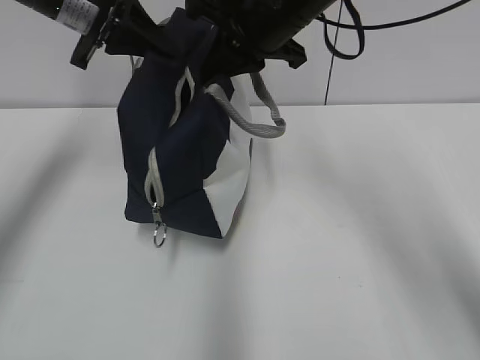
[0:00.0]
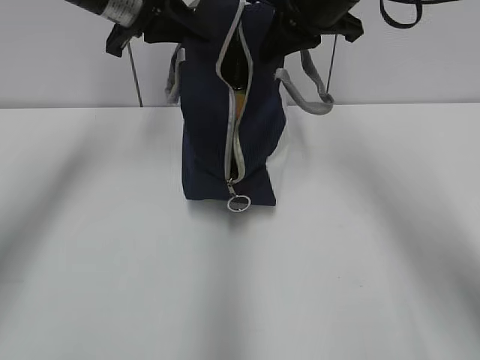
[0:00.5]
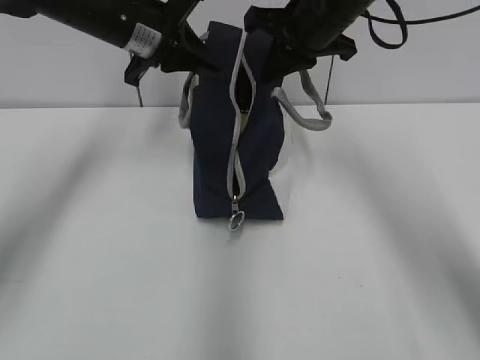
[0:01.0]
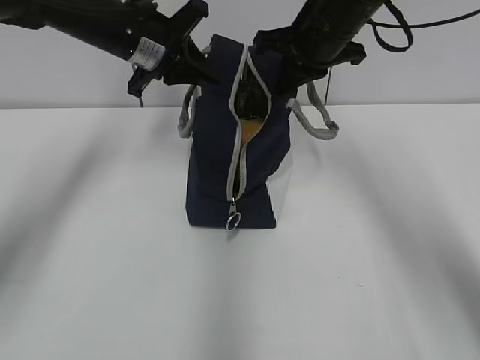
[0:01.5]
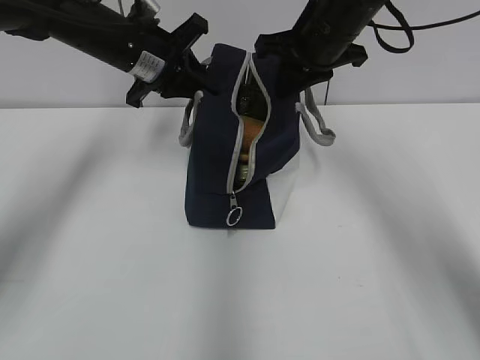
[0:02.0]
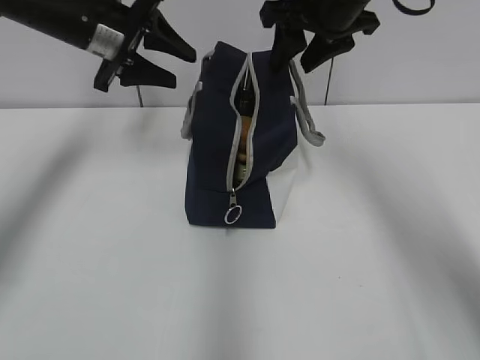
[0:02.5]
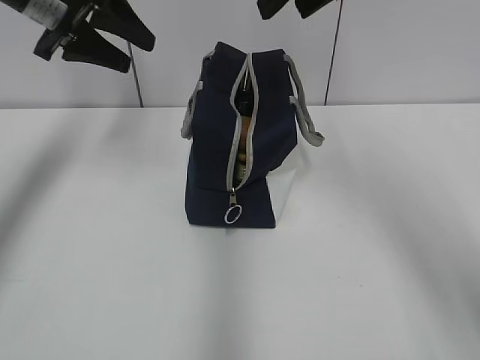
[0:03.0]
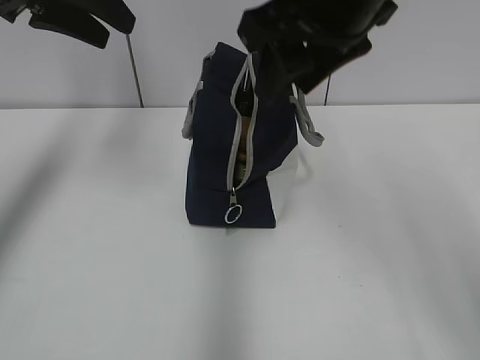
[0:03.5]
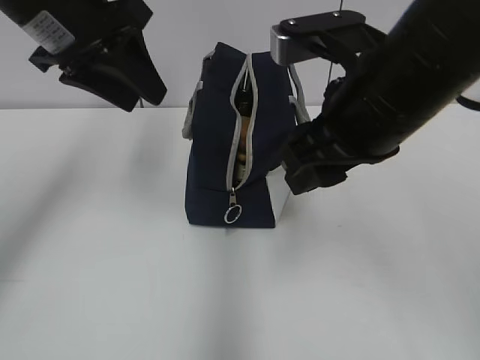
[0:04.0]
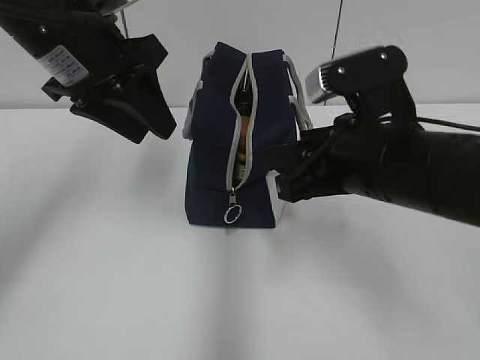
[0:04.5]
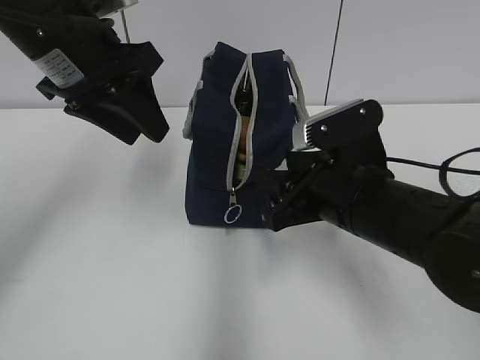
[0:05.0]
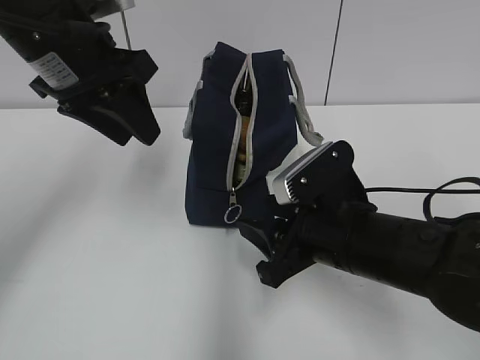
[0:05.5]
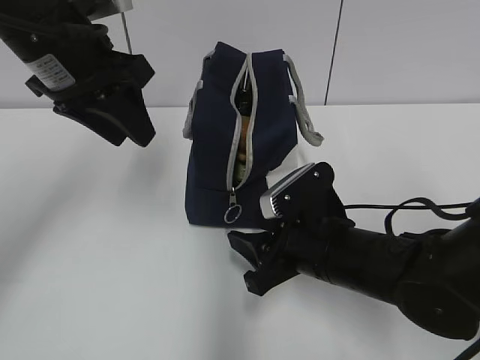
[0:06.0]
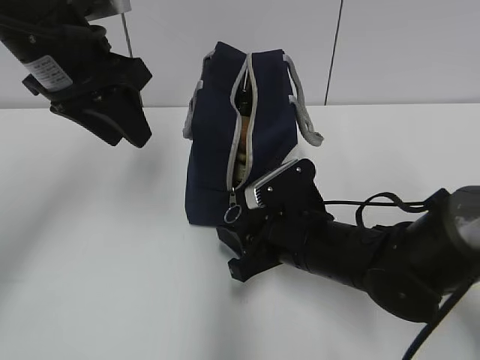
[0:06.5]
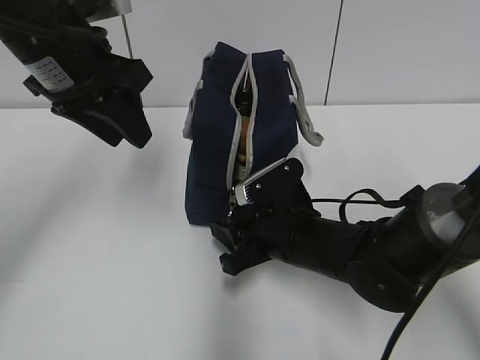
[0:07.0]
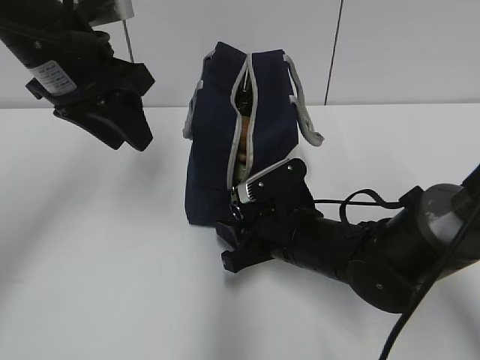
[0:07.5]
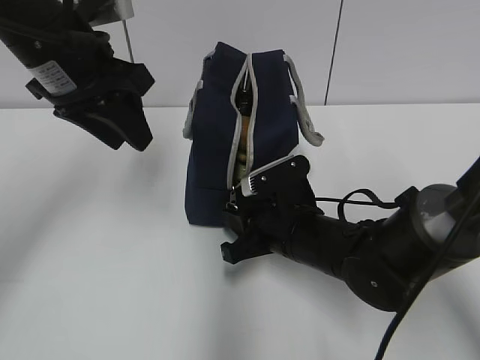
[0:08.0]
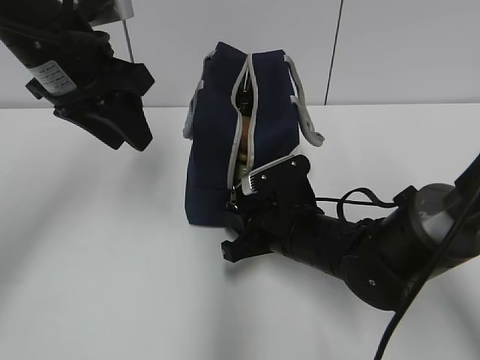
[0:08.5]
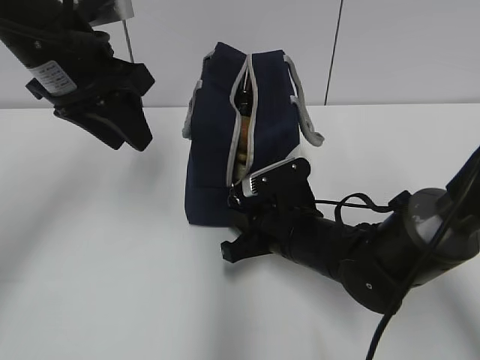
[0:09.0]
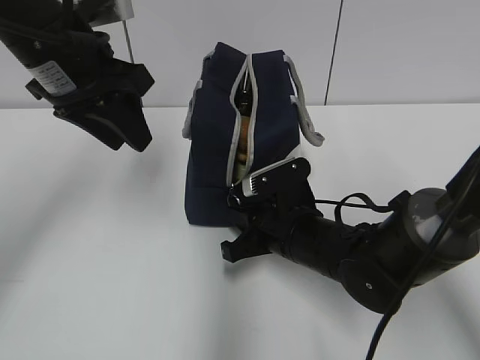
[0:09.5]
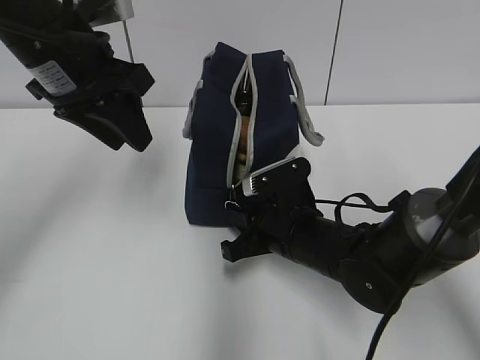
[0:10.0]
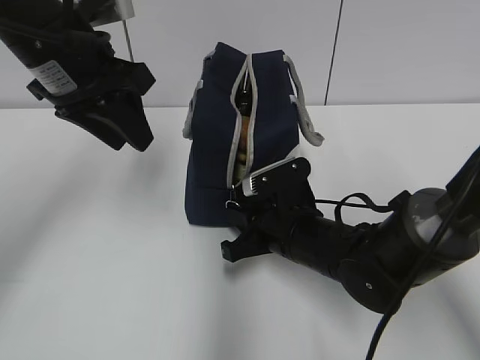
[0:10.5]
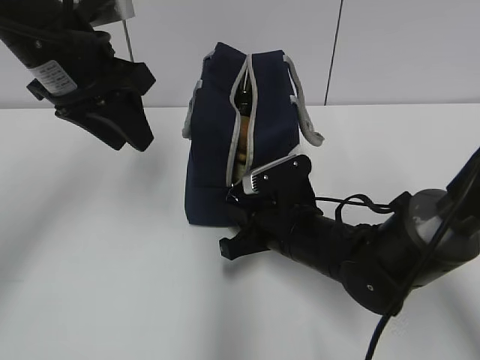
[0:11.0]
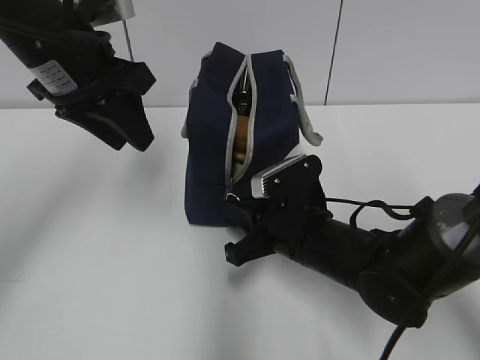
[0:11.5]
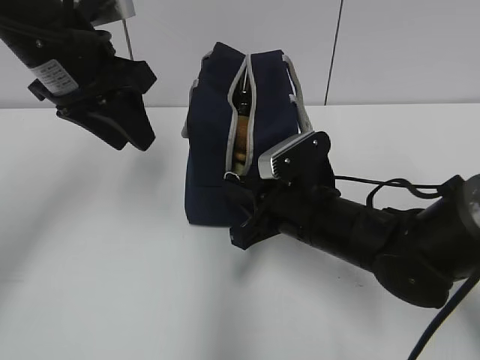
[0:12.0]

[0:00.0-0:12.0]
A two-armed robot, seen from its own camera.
Step, 0:00.0 to 0:02.0: Move the lunch bag to the right.
0:00.0 to 0:02.0: The right gripper heads to the right, covering about 5 cm. Meanwhile the left gripper is displaced downward by approximately 5 cm.
0:02.0 to 0:04.0: The left gripper shifts roughly 15 cm backward and upward, and opens. The right gripper is displaced backward by roughly 20 cm, and opens its fingers.
0:04.0 to 0:06.0: The right gripper is displaced downward by roughly 20 cm.
0:06.0 to 0:08.0: The right gripper ends up approximately 5 cm from where it was, and closes.
0:08.0 to 0:10.0: The two grippers keep their place.
0:10.0 to 0:12.0: The grippers make only small movements.

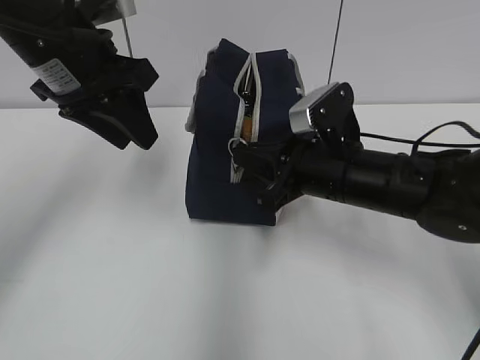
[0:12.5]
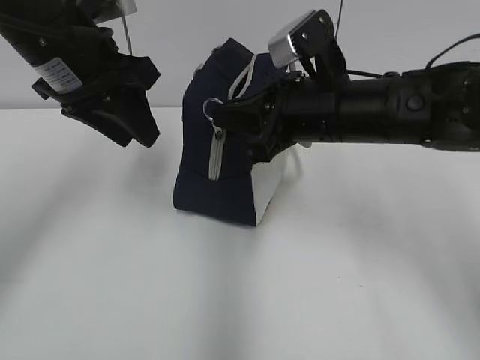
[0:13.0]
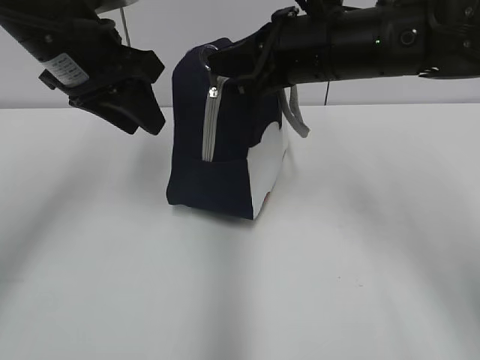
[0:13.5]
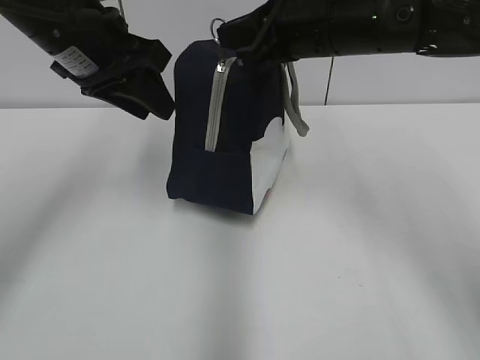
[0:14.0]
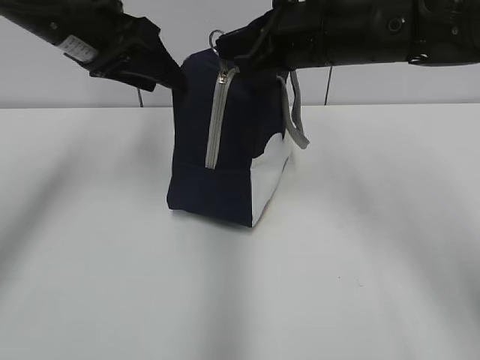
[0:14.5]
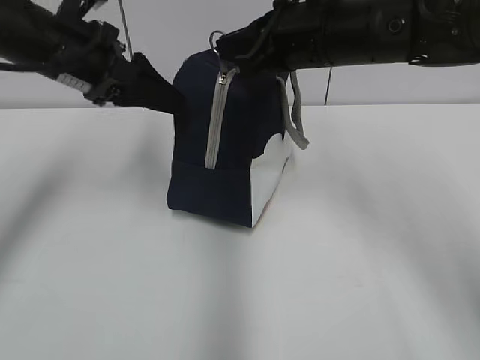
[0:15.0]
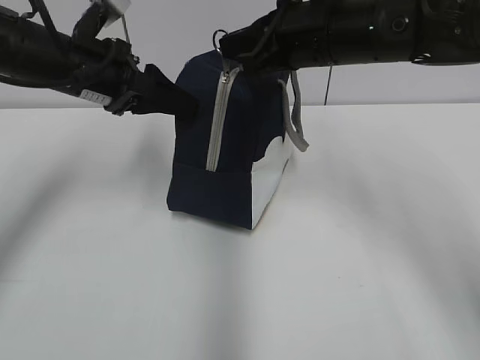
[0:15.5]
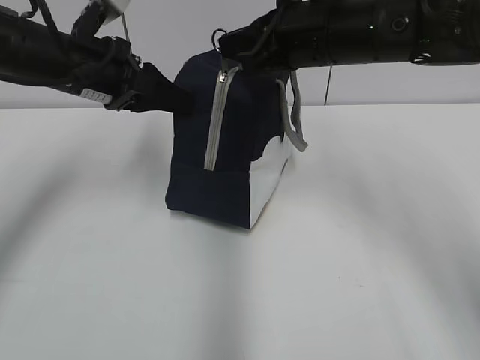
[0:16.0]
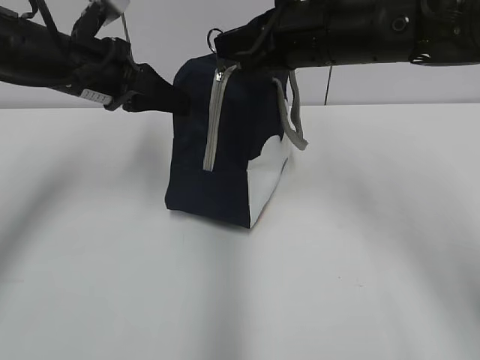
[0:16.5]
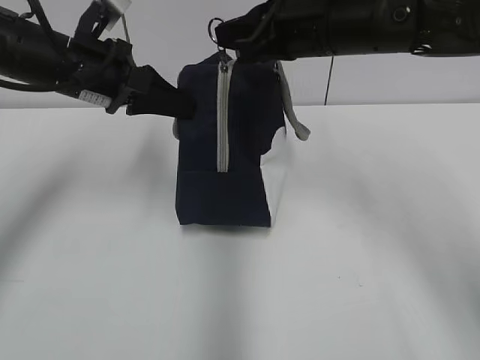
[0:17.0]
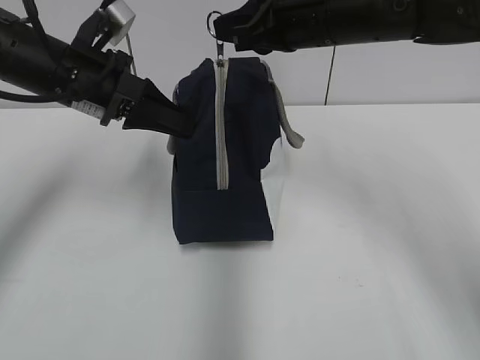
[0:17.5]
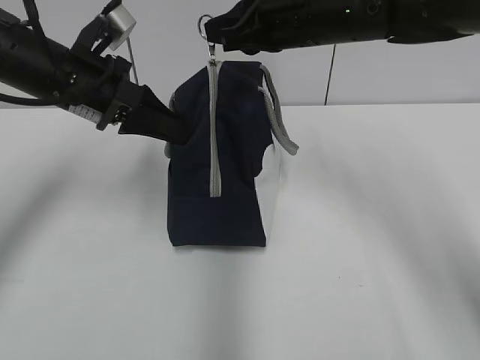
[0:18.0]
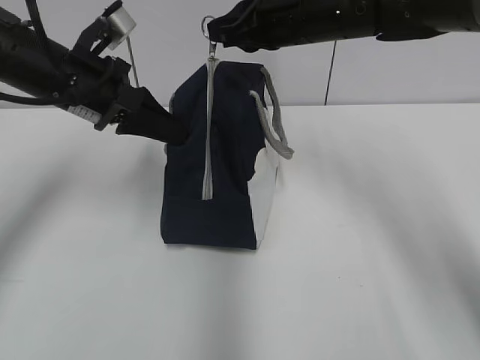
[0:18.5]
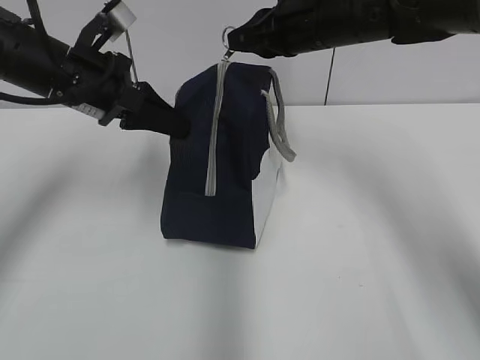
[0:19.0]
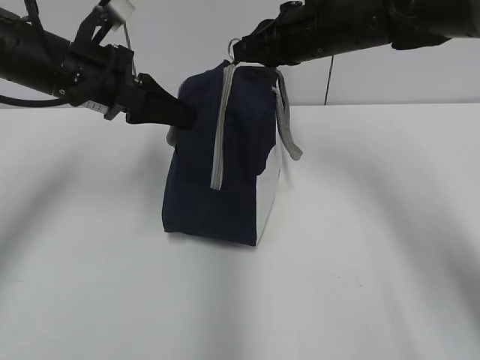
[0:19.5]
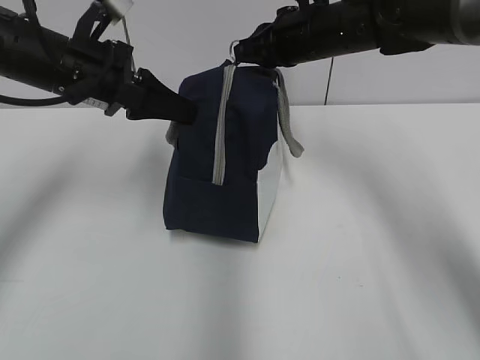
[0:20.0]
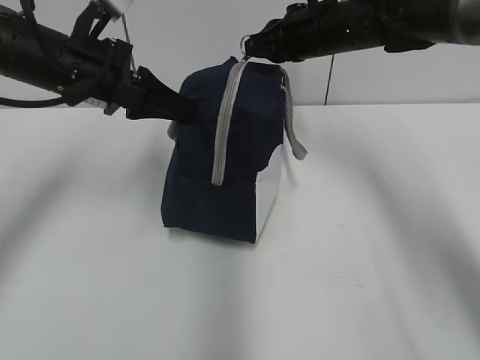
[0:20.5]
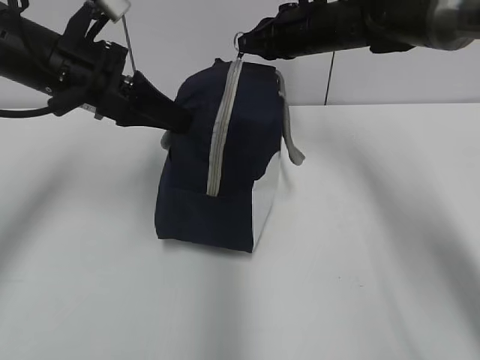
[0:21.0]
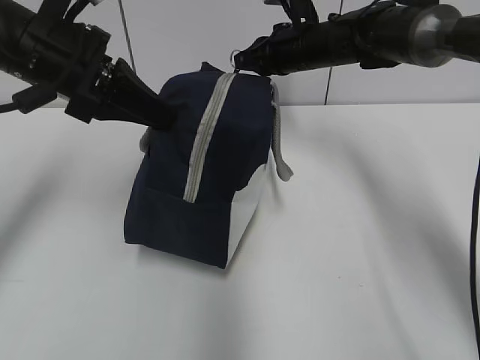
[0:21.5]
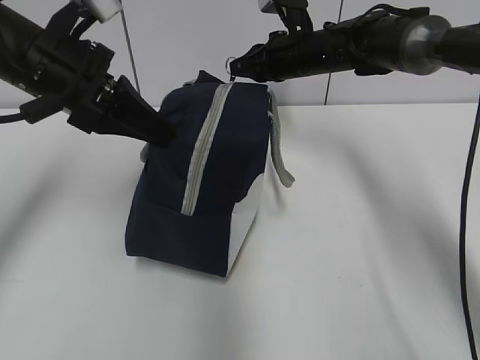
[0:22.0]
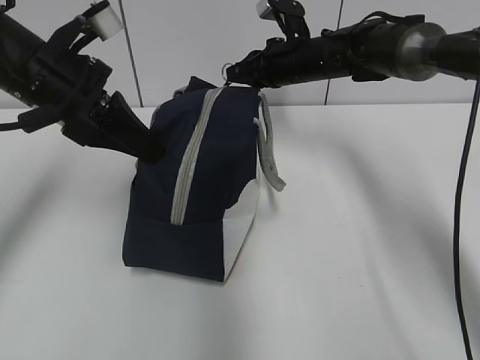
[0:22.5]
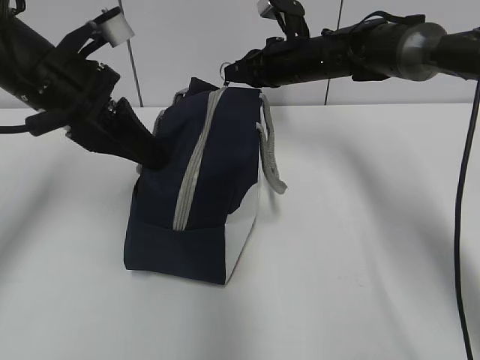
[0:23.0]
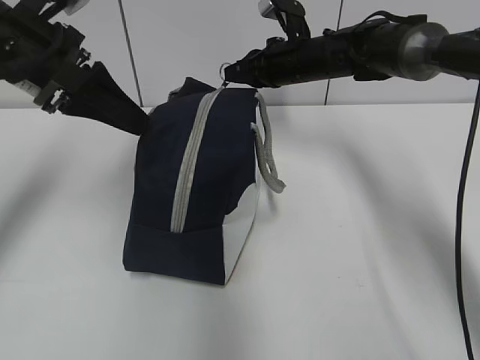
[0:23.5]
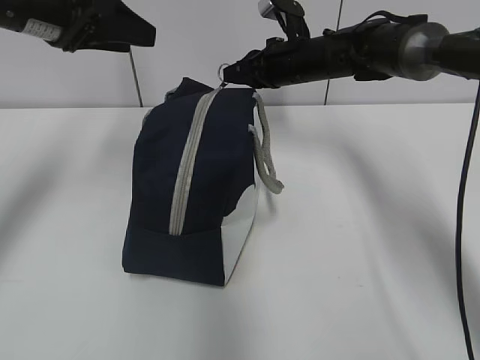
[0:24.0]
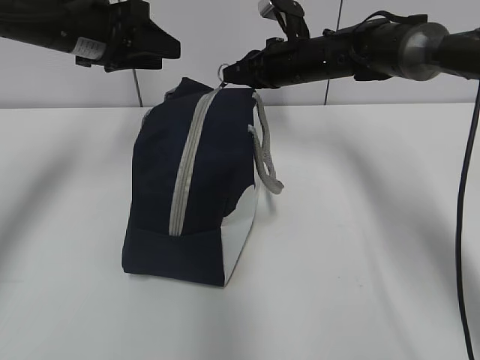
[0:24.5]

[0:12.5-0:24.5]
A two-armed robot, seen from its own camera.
Step, 0:12.5 to 0:16.0: Grab the lunch bag with your left hand.
0:12.5 to 0:14.5: The right gripper travels upward and forward by about 15 cm.
0:14.5 to 0:16.5: The left gripper travels downward by about 5 cm, and closes its fingers.
0:16.5 to 0:18.5: The right gripper heads forward, covering approximately 5 cm.
0:18.5 to 0:20.5: The right gripper moves forward, approximately 5 cm.
0:20.5 to 0:22.5: The right gripper goes about 5 cm downward.
0:22.5 to 0:24.5: The left gripper heads forward, covering about 10 cm, and opens its fingers.

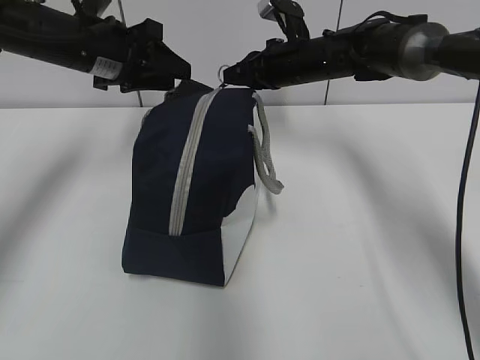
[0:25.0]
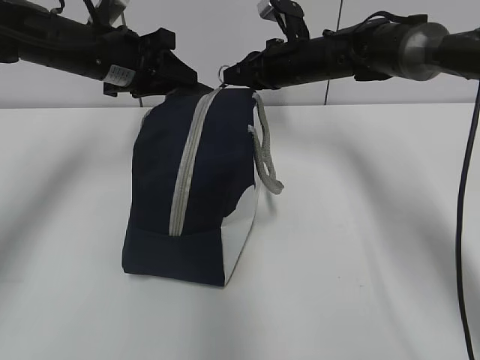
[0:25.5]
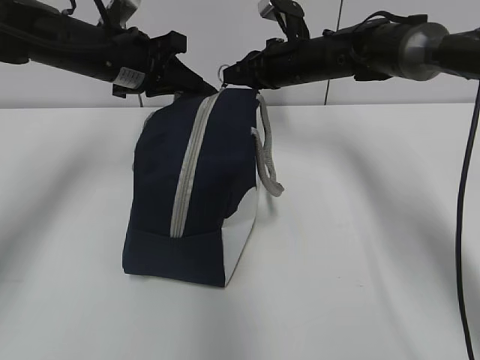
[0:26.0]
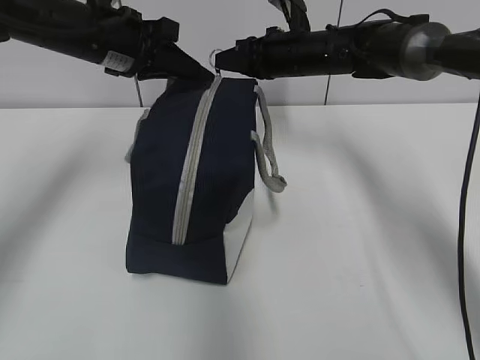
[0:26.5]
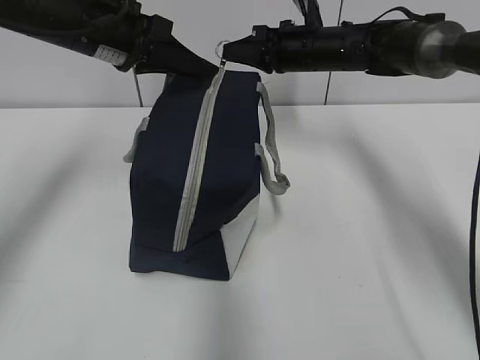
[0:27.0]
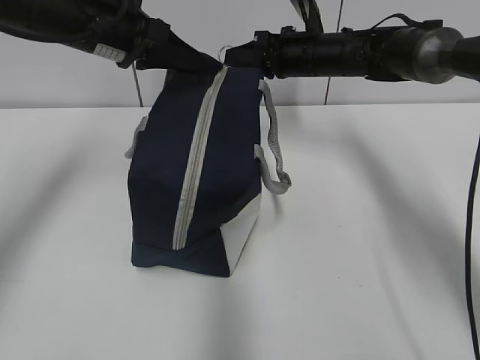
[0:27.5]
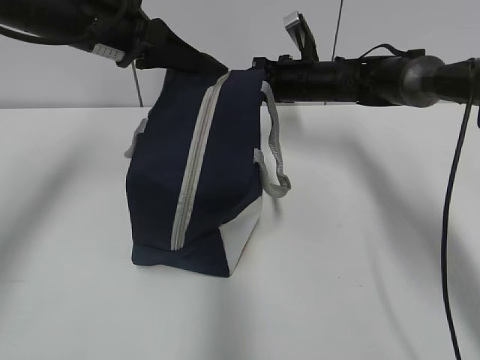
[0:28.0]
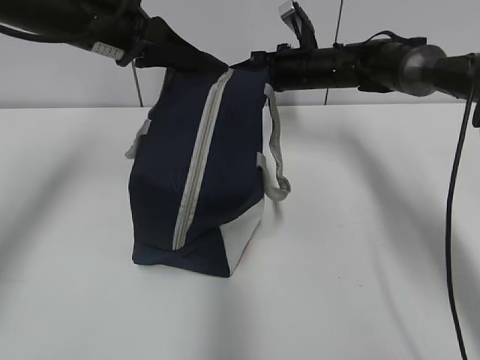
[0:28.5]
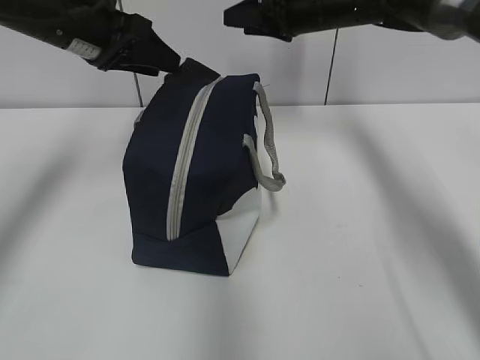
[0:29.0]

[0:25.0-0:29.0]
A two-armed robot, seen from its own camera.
Step, 0:25.0 to 0:28.5: Pull the zipper with your right hand.
0:25.0 to 0:27.0: The left gripper closes its fingers.
0:27.0 to 0:29.0: The left gripper opens. The right gripper moves approximately 5 cm, and opens its fingers.
